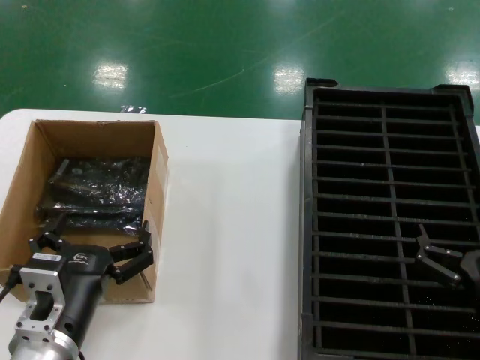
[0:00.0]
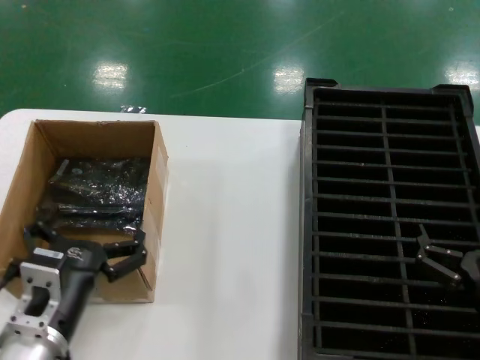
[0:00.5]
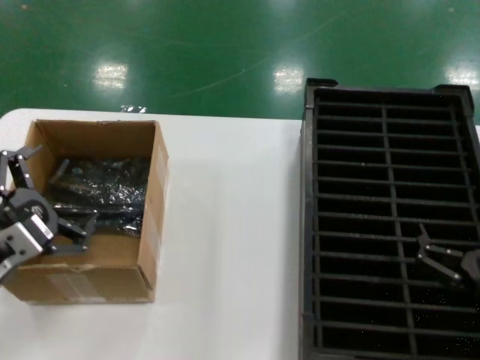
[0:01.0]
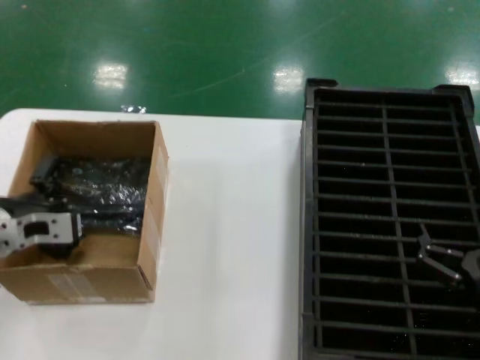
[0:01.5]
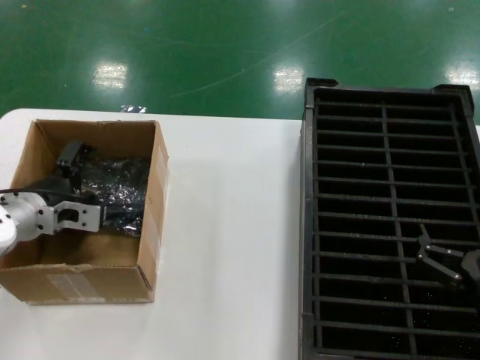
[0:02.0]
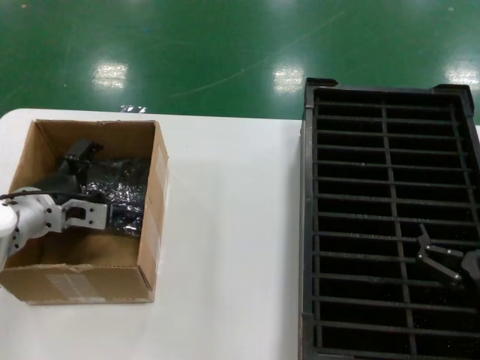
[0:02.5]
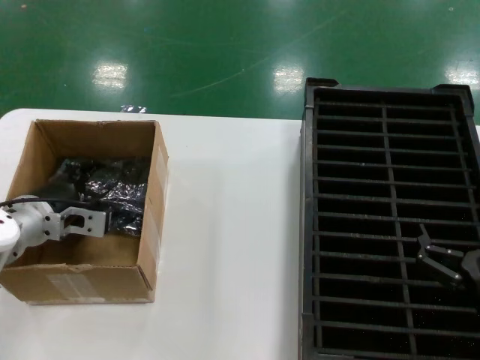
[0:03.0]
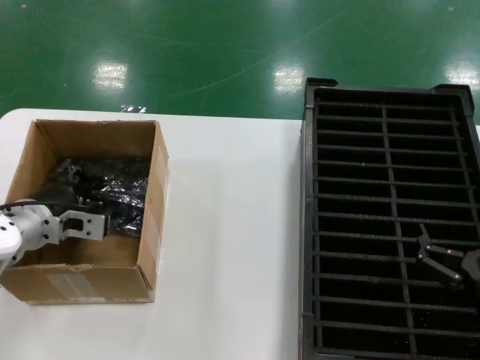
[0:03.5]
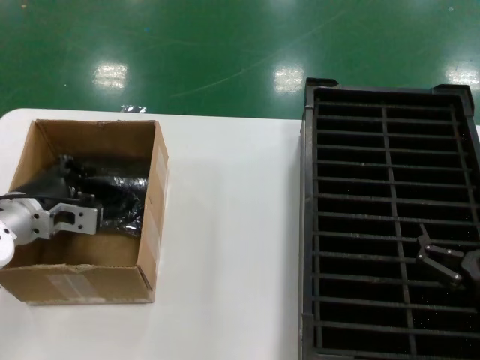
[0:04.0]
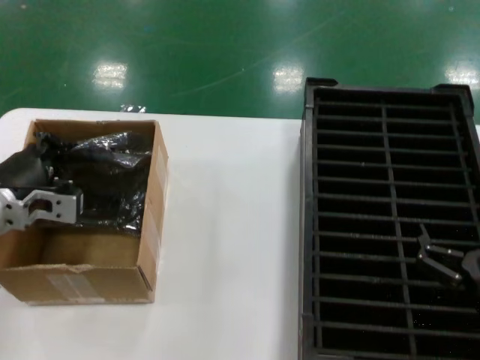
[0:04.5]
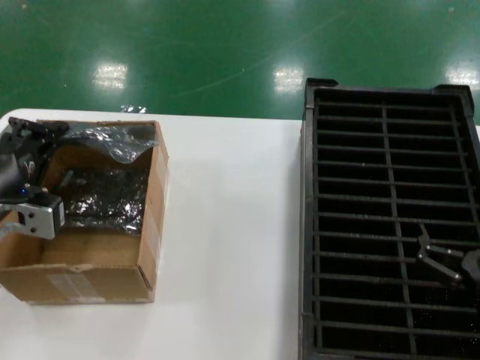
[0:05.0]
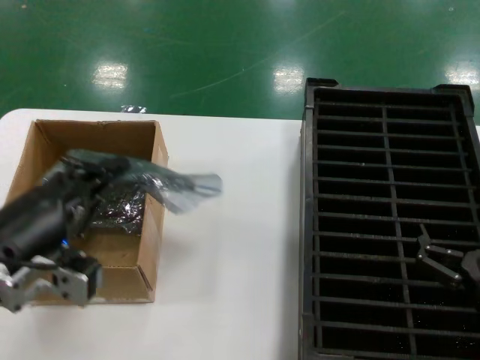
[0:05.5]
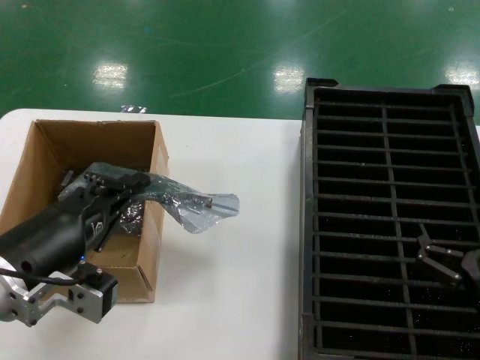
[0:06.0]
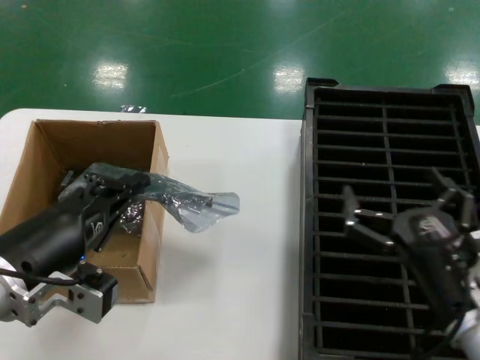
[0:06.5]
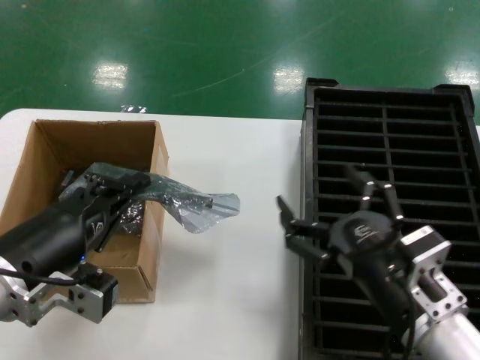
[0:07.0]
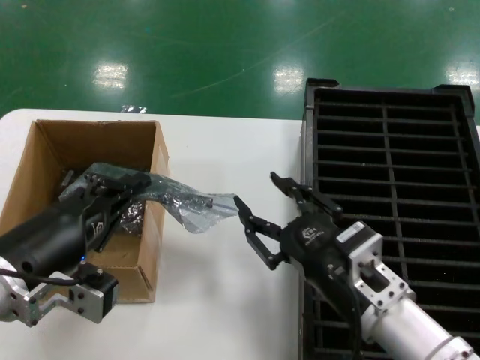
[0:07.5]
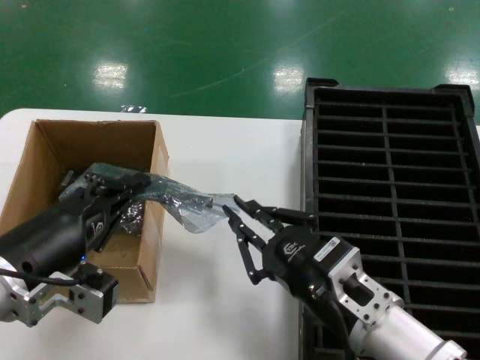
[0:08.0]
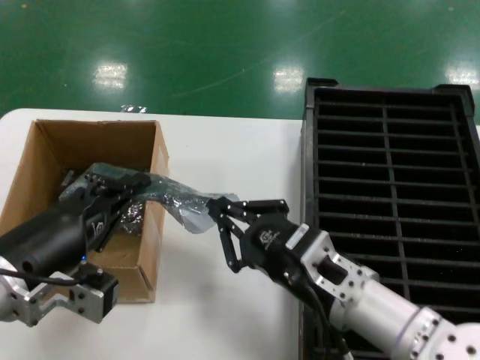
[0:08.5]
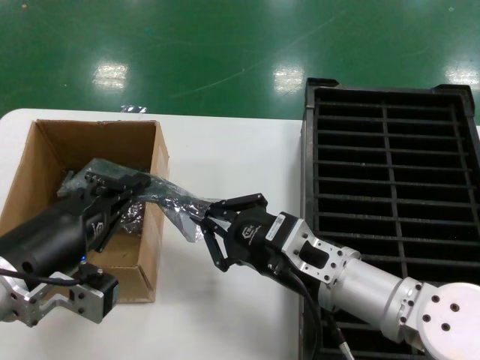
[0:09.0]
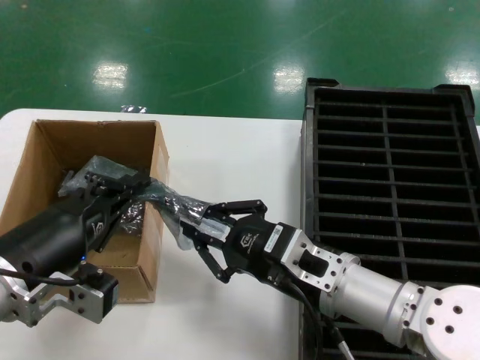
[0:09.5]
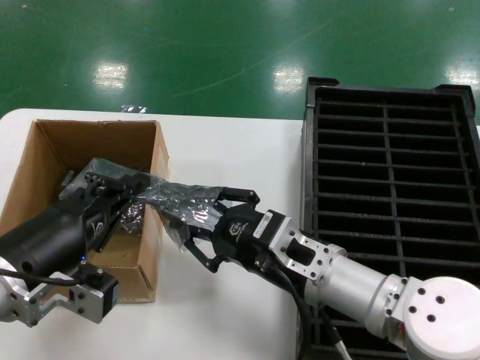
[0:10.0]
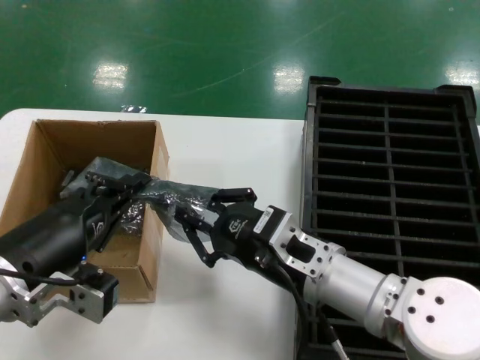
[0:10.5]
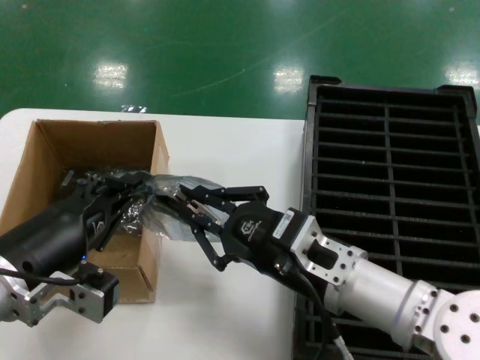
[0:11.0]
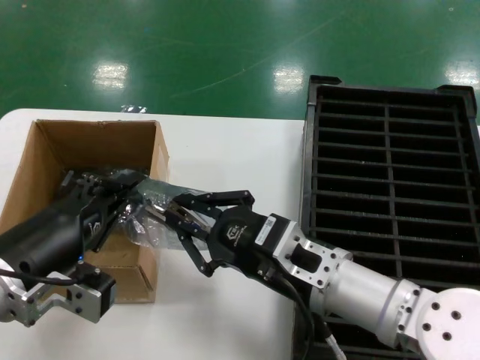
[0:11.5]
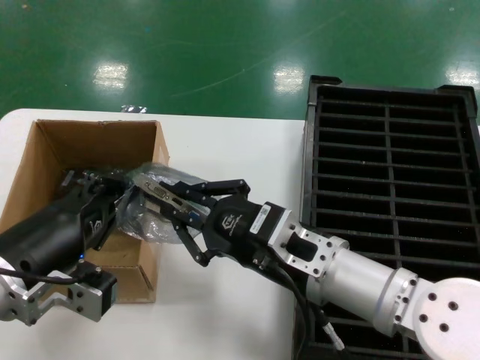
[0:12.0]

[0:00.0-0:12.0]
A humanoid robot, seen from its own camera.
Task of the whole recording: take out graphics card from box remove packaging put into black container.
Step, 0:00.0 to 0:03.5: Grasp the bag.
Step, 0:04.0 to 0:05.5: Lift the bag.
0:00.0 to 0:02.0: The left hand goes roughly 20 cm forward and to the left.
0:02.0 to 0:04.0: There are only small adjustments of the hands.
0:04.0 to 0:06.0: The left hand goes approximately 20 cm backward.
0:06.0 to 0:08.0: The right hand heads to the left, covering about 15 cm.
0:08.0 to 0:10.0: The right hand is displaced forward by some 5 cm.
0:10.0 to 0:12.0: There are only small adjustments of the hands.

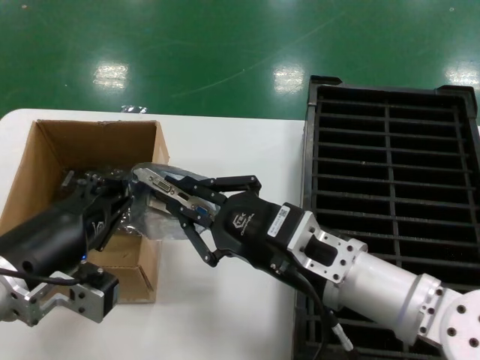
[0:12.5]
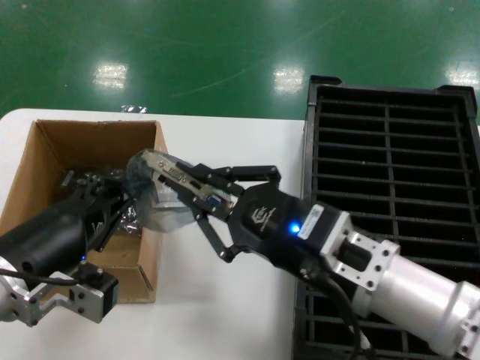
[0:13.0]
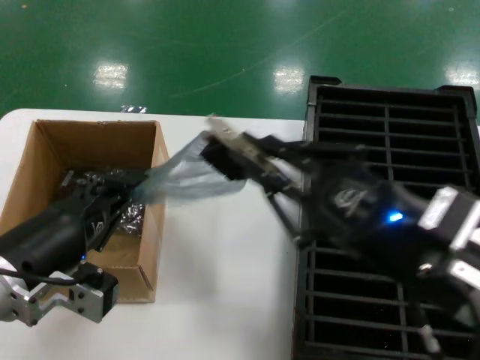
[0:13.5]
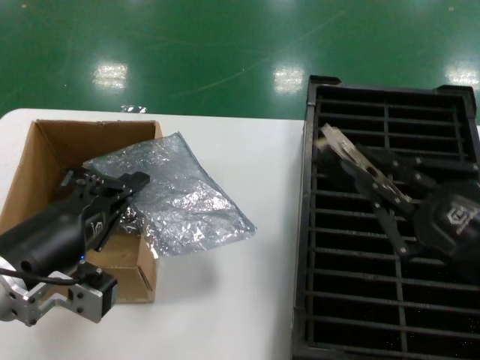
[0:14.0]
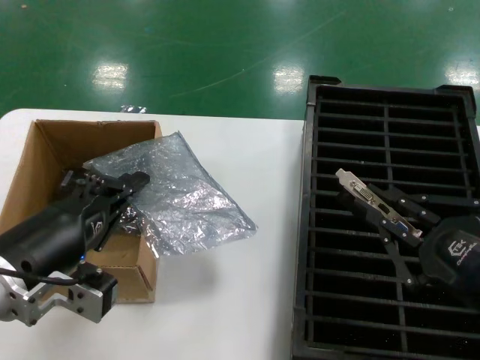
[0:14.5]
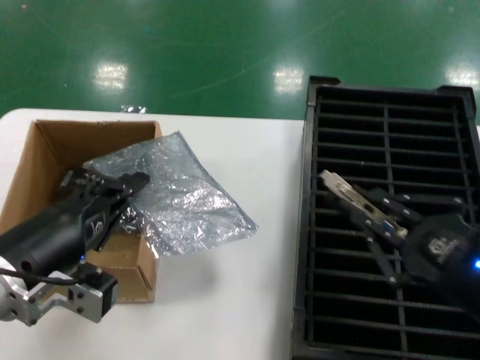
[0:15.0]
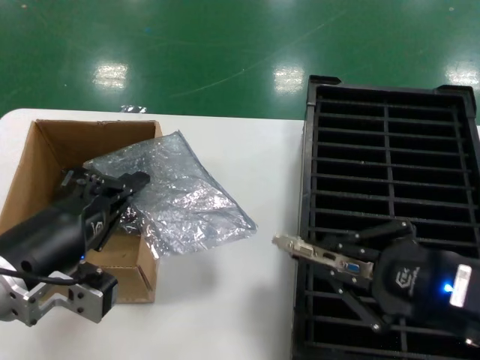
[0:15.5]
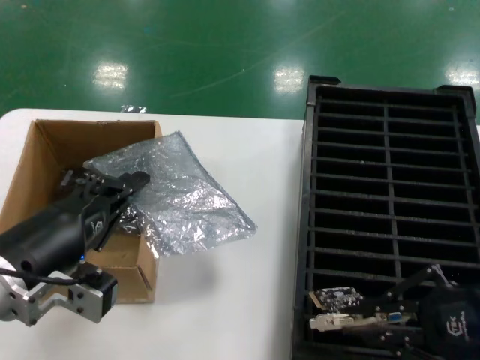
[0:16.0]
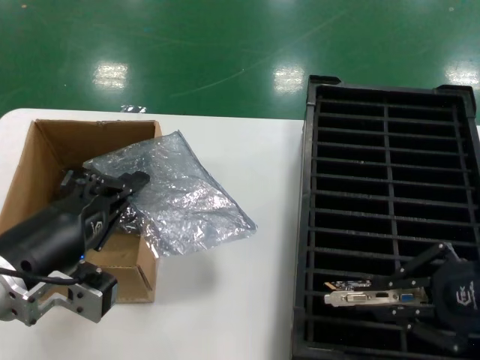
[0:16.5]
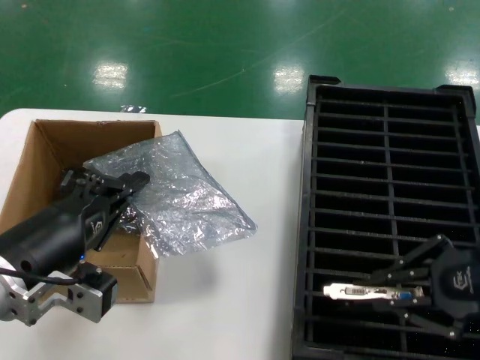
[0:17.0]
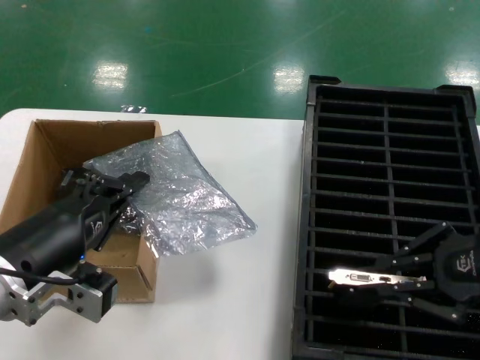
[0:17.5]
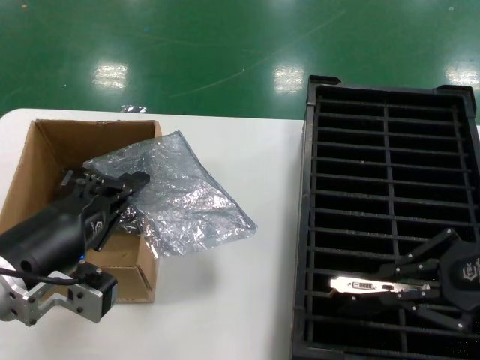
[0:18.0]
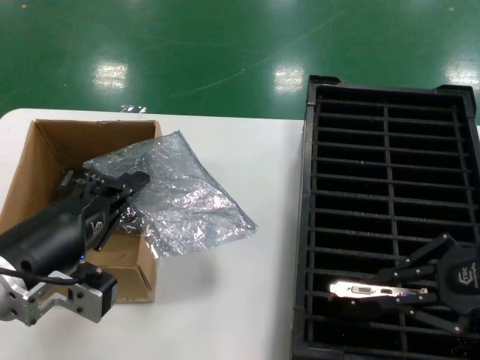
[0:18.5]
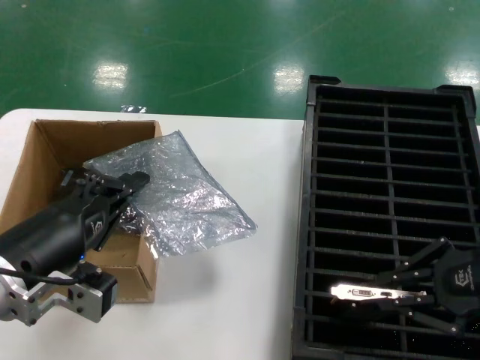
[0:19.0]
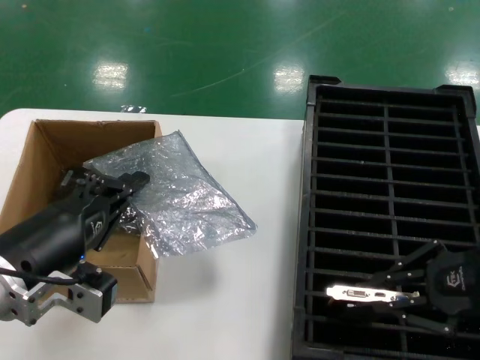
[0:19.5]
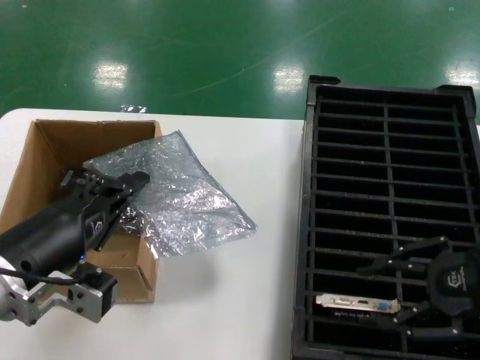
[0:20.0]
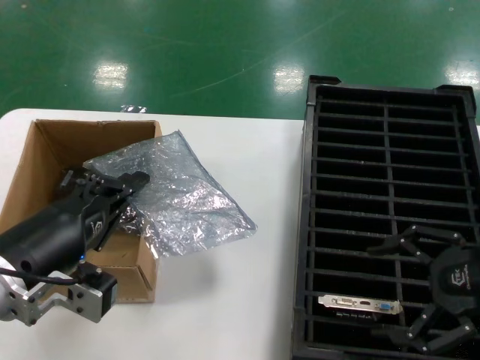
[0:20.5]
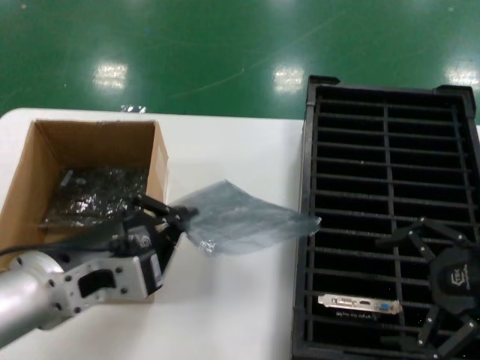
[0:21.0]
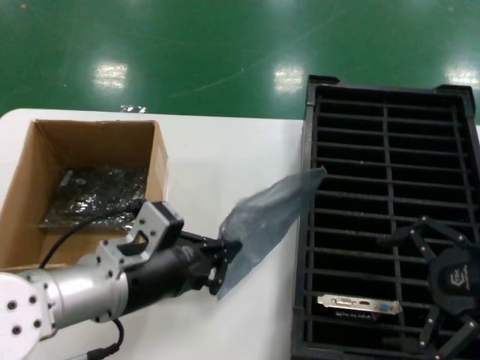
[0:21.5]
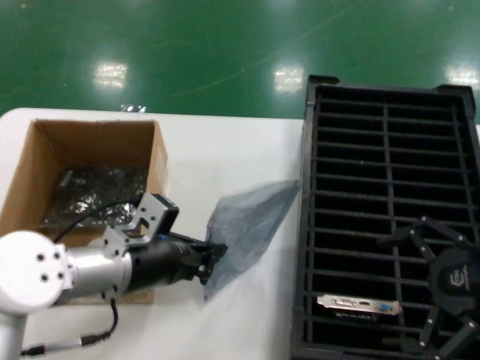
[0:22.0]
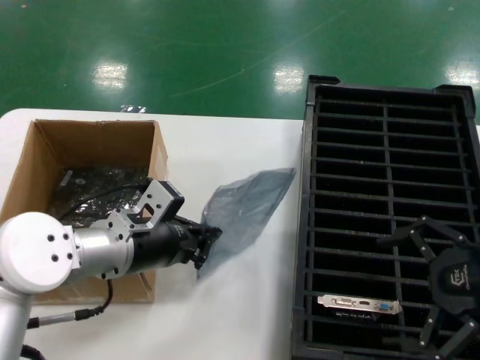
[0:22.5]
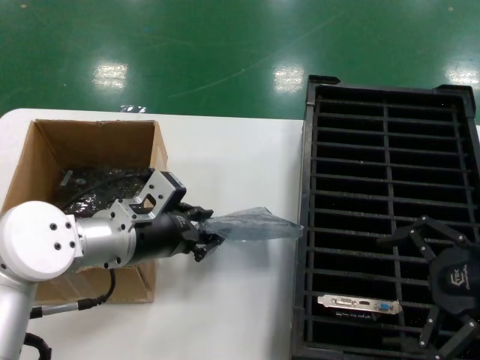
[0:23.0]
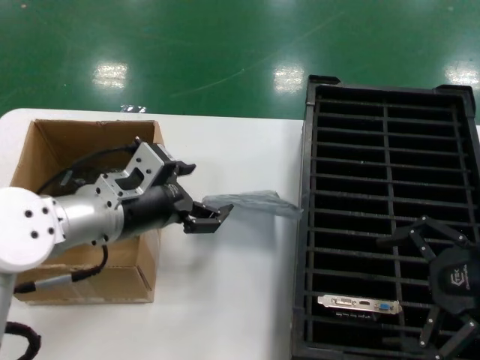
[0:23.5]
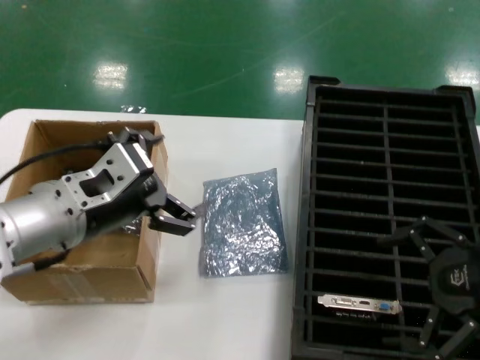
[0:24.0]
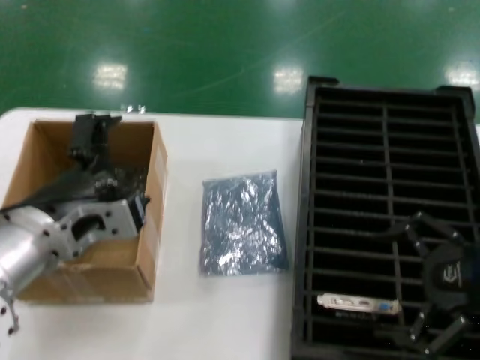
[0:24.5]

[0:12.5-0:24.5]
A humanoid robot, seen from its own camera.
Task of the whole recording: take out graphics card from box remove packaging put into black container.
Step, 0:14.0 to 0:19.5: Place the hard disk in the hard disk enclosure.
Step, 0:20.0 to 0:23.5: Place the down the bag.
0:12.5 to 0:14.5: The right hand moves to the right and backward, about 20 cm.
0:14.5 to 0:16.5: The right hand is displaced forward, to the right and upward by about 10 cm.
0:16.5 to 0:18.5: The hands stay close to where they were, moving slightly.
0:18.5 to 0:20.5: The hands stay close to where they were, moving slightly.
0:20.5 to 0:22.5: The left hand moves forward, approximately 15 cm.
0:22.5 to 0:24.5: The left hand shifts approximately 10 cm backward and upward.

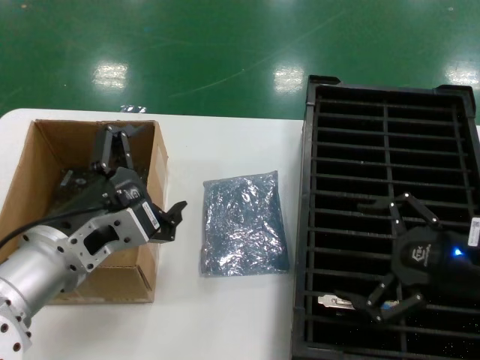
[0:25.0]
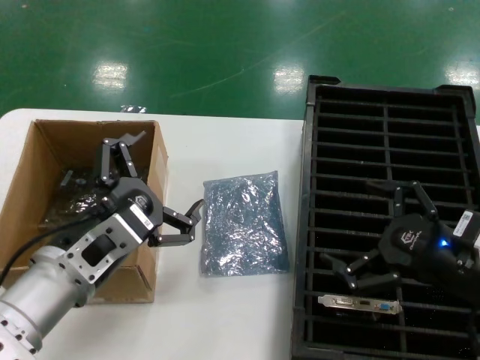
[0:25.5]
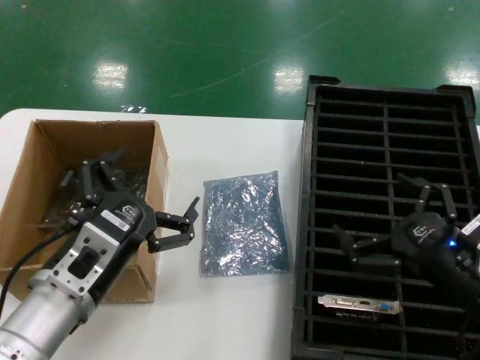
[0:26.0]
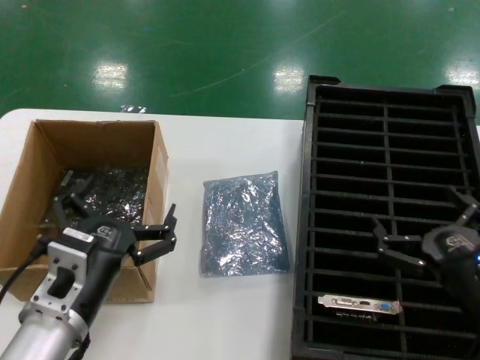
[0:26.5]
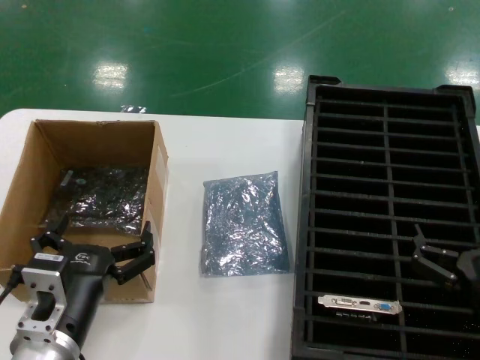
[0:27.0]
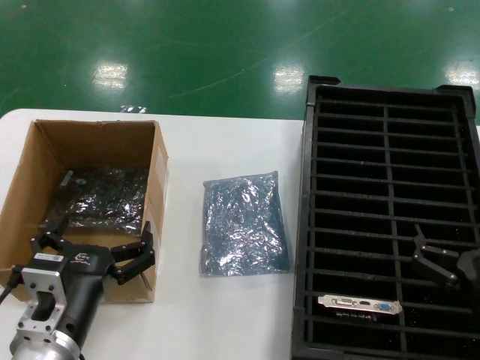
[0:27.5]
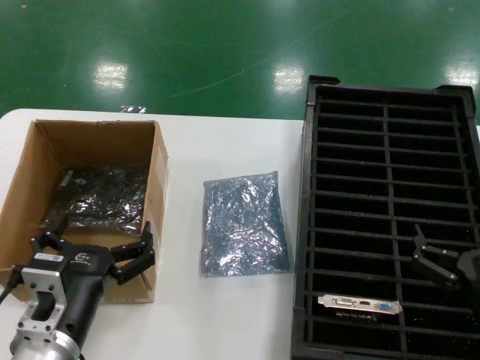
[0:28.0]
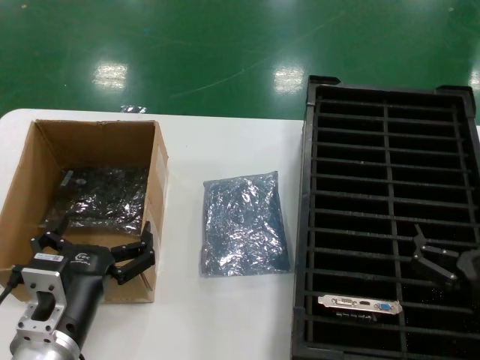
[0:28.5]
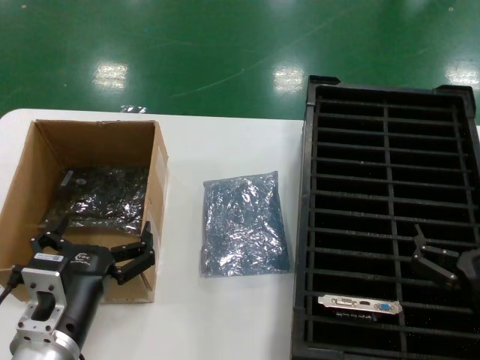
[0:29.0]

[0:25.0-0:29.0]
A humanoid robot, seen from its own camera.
Task of the whole recording: take out graphics card from box remove packaging put into black container.
0:25.0 to 0:27.0: The left hand travels downward by approximately 15 cm. The right hand goes about 15 cm downward and backward.
0:27.0 to 0:29.0: Neither hand changes place.
